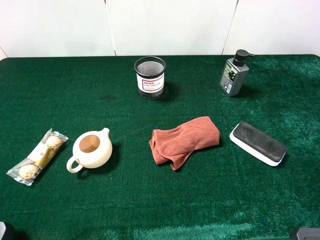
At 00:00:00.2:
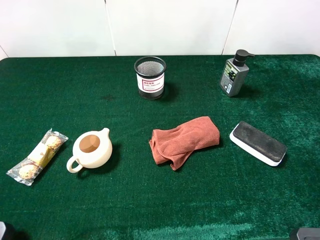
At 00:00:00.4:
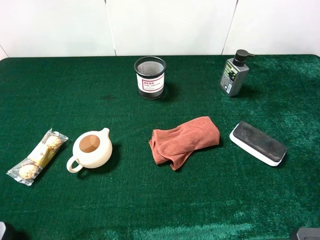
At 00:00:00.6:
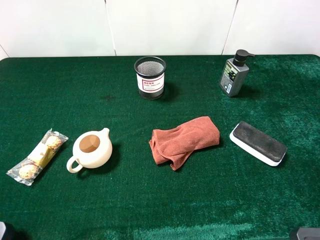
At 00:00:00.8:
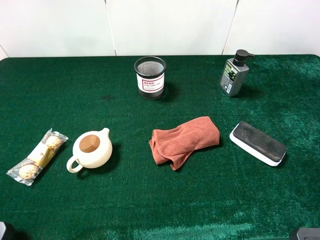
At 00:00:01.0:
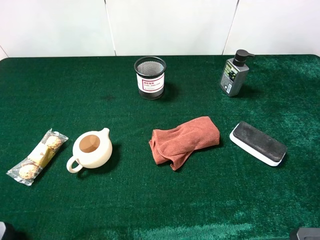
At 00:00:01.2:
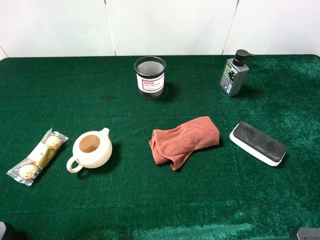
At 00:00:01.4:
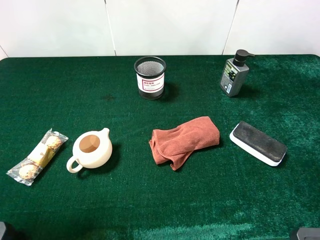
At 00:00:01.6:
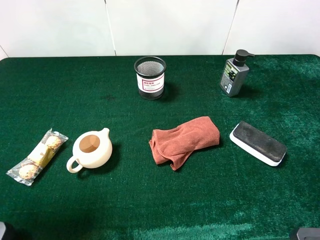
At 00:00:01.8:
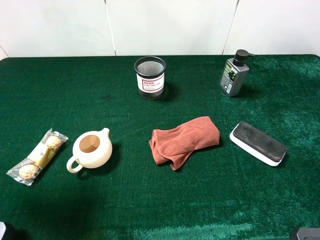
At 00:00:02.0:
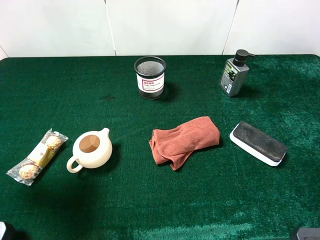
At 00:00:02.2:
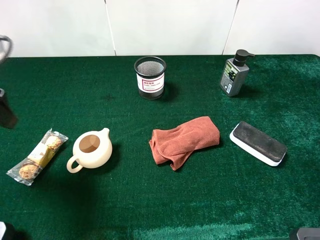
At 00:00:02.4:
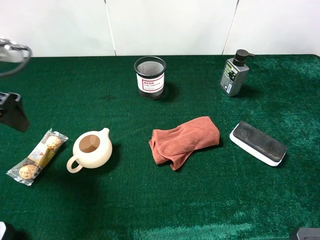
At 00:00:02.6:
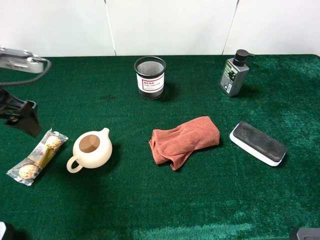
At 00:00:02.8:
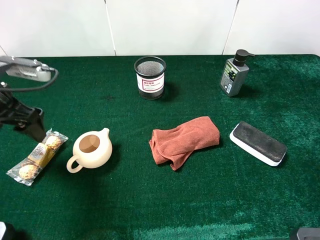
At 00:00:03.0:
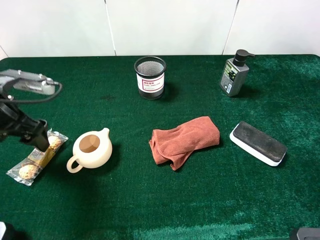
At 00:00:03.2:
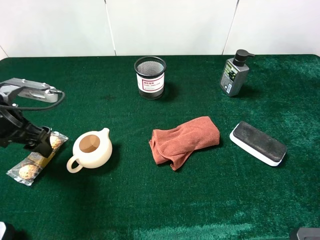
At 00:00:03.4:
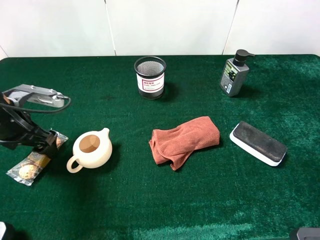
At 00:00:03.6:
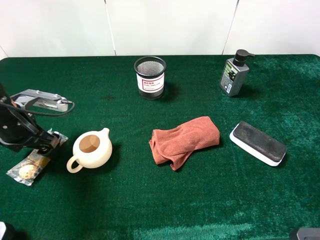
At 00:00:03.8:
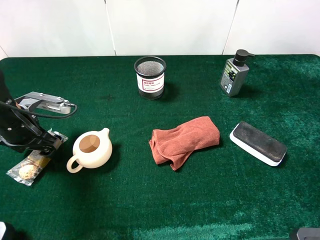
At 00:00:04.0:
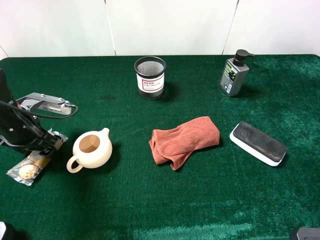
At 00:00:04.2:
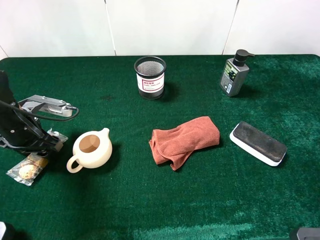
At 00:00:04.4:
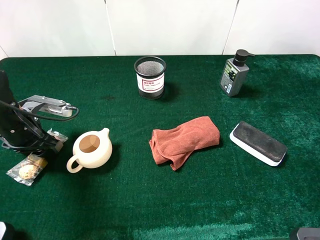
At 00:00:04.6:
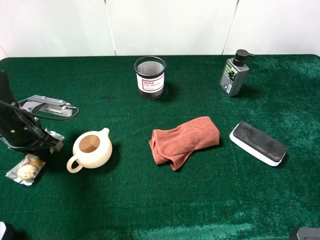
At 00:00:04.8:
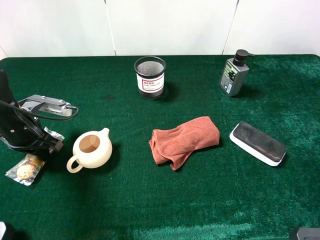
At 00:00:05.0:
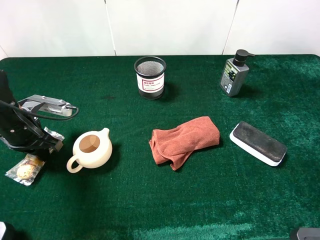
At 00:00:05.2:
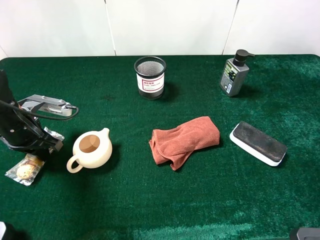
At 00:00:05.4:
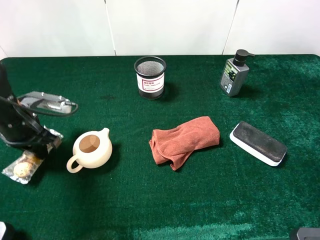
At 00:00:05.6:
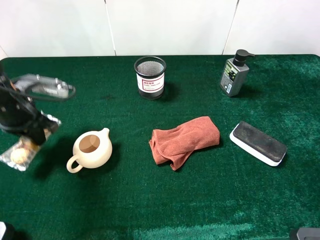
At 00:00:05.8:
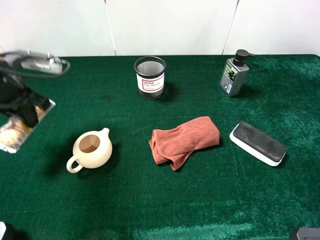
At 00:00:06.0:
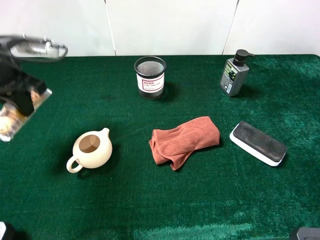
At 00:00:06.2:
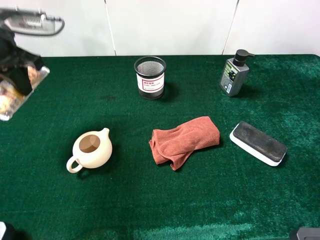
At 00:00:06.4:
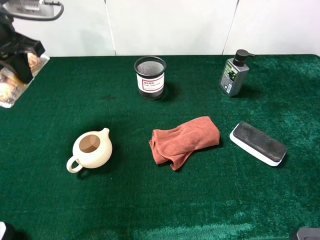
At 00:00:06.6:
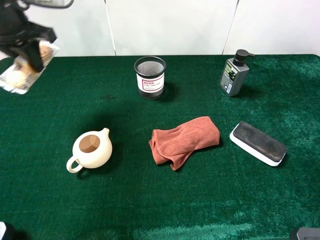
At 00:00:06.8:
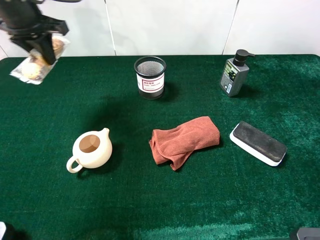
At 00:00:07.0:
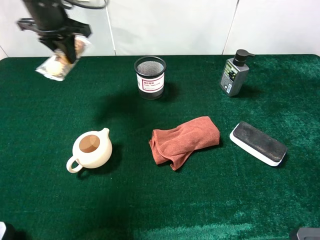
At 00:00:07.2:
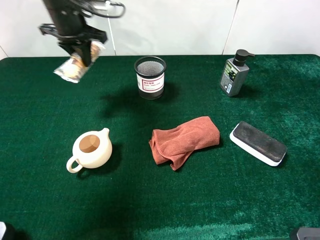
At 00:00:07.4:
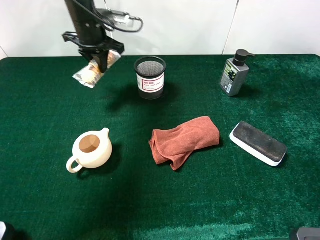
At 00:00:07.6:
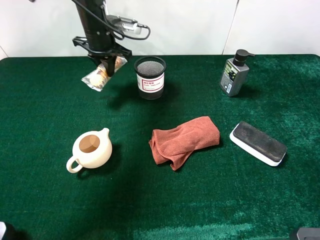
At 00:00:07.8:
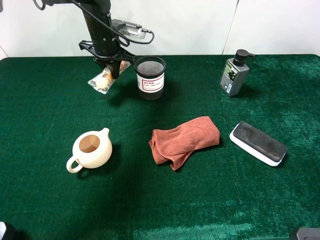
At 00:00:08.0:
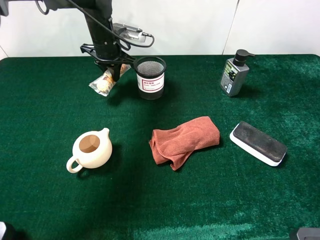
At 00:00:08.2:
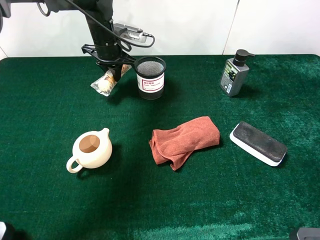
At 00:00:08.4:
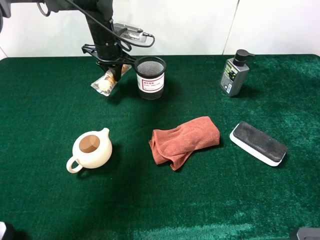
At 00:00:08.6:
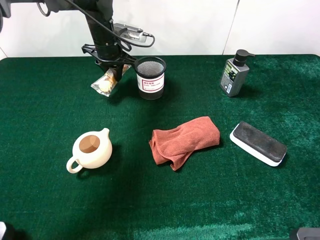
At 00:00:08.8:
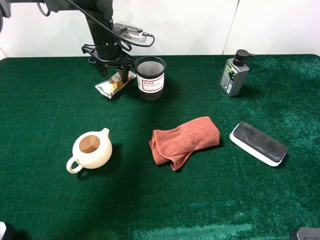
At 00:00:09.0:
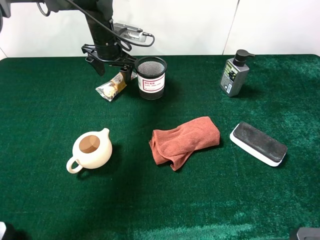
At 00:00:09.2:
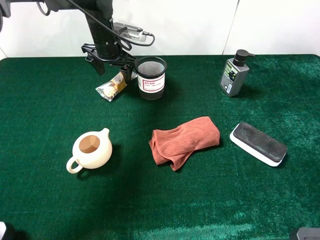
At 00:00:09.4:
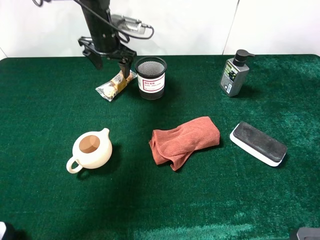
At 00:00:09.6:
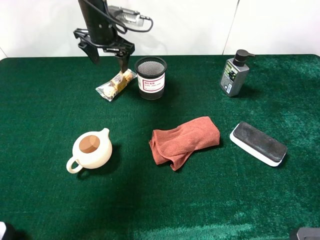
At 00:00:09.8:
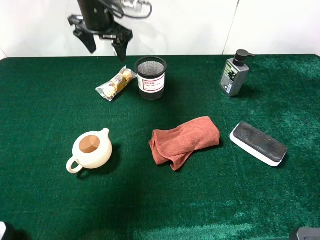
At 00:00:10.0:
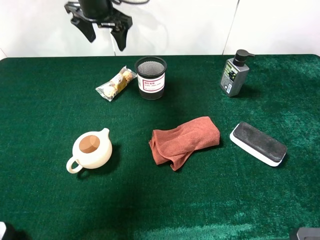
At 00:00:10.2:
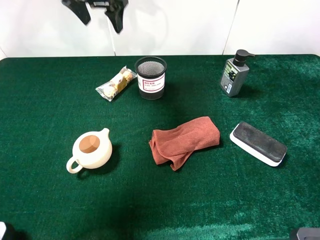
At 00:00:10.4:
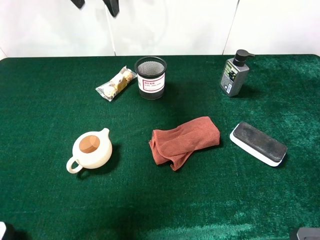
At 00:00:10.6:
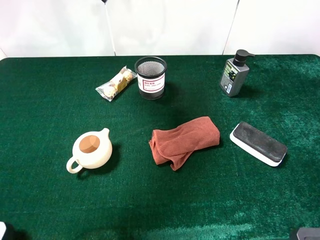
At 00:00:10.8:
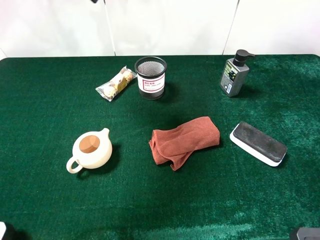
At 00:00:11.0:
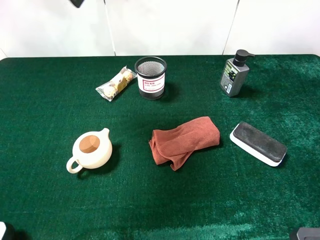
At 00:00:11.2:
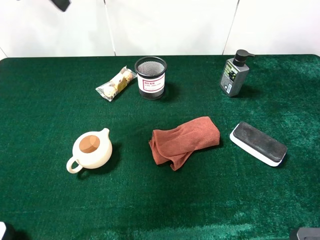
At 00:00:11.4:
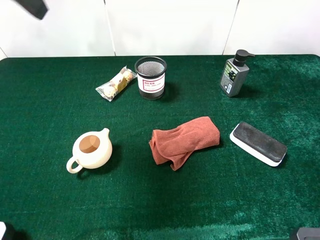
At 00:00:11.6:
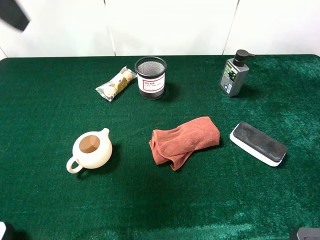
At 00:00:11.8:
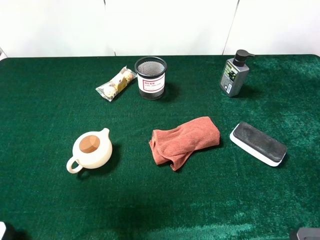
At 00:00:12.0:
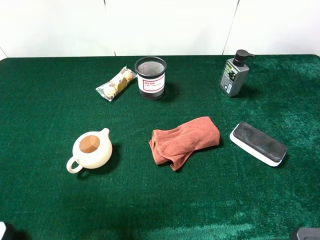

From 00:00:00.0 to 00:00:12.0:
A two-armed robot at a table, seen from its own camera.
Task of the whole recording: the gripper move the object.
Step, from 00:00:00.0 to 00:00:04.8: Grasp the chocolate with the left gripper.
Step, from 00:00:05.0 to 00:00:09.4: Place the chocolate on the table with the left gripper.
From 00:00:00.0 to 00:00:01.6: The left gripper shifts some 10 cm forward.
From 00:00:01.6 to 00:00:03.0: The left gripper is displaced downward and forward by roughly 20 cm.
From 00:00:03.0 to 00:00:04.4: The left gripper heads downward, covering about 5 cm, and closes its fingers.
From 00:00:04.4 to 00:00:06.0: The left gripper goes approximately 15 cm upward, and closes its fingers.
From 00:00:06.0 to 00:00:07.6: The left gripper moves forward and to the right, roughly 20 cm.
From 00:00:07.6 to 00:00:09.0: The left gripper opens.
From 00:00:09.0 to 00:00:10.4: The left gripper is displaced upward by approximately 20 cm.
From 00:00:10.4 to 00:00:12.0: The left gripper travels backward and to the left by about 30 cm.

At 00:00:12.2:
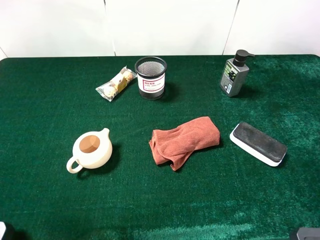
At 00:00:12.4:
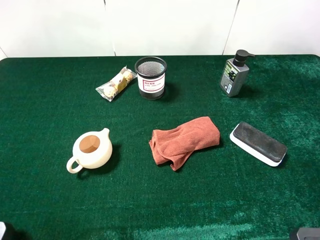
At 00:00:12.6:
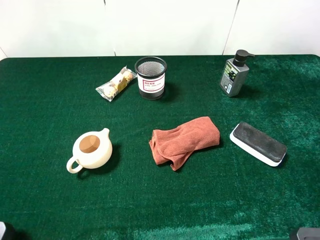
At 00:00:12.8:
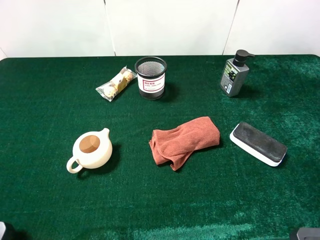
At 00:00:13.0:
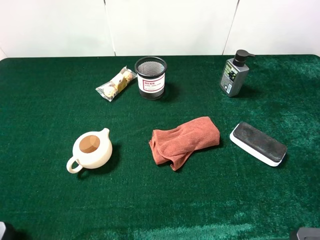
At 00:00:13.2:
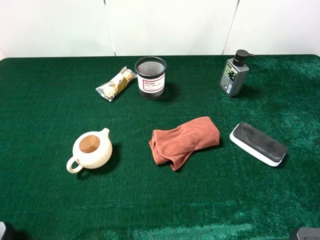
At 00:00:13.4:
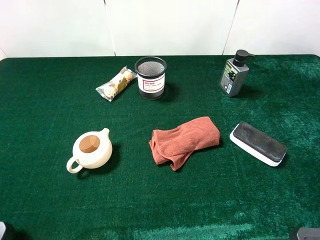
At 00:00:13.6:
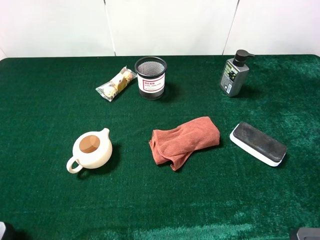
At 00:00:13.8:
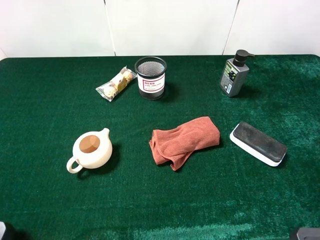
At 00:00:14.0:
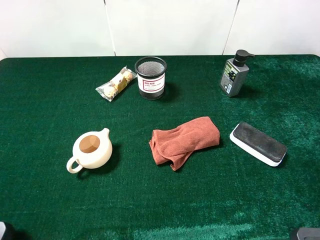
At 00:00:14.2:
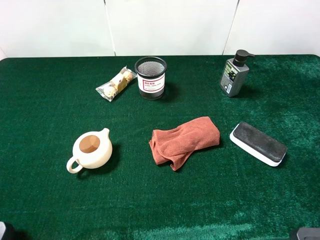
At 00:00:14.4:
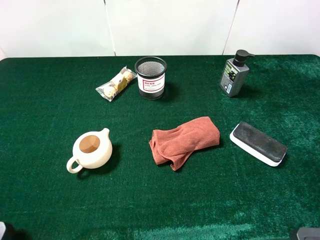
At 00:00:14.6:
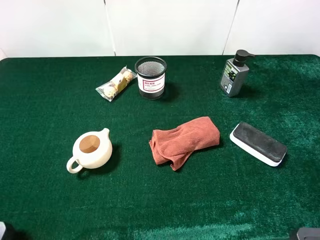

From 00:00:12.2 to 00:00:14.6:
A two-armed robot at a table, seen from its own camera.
Task of the whole recording: the gripper move the object.
From 00:00:13.4 to 00:00:14.6: Neither gripper changes place.
